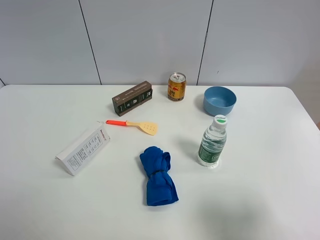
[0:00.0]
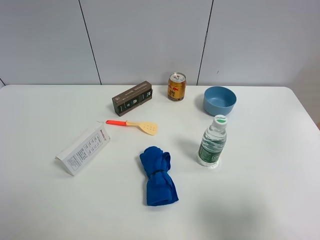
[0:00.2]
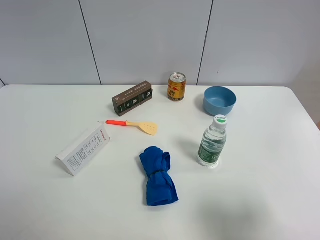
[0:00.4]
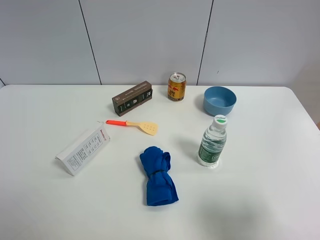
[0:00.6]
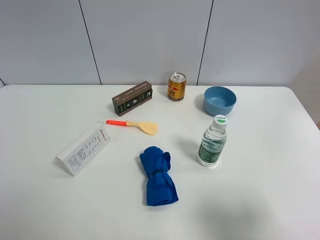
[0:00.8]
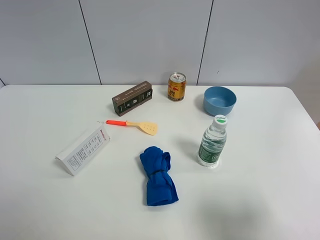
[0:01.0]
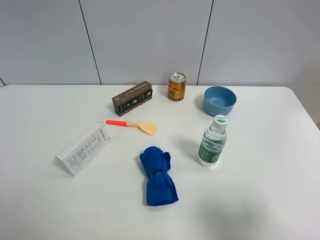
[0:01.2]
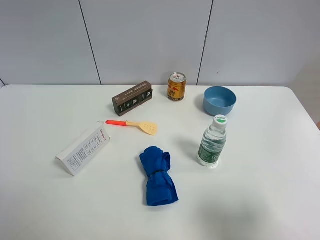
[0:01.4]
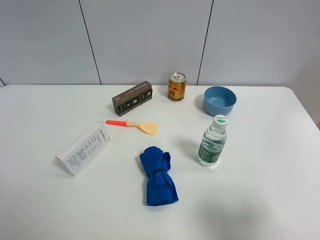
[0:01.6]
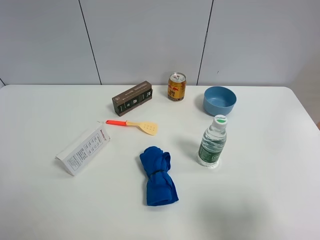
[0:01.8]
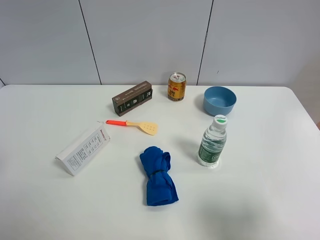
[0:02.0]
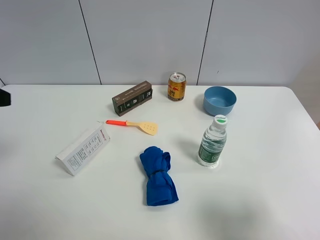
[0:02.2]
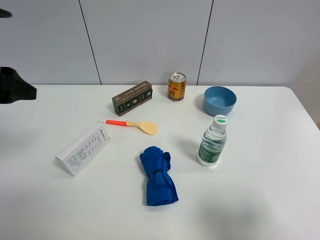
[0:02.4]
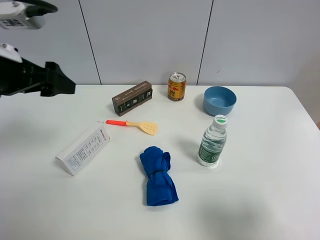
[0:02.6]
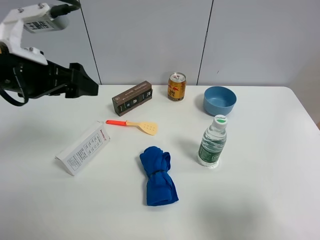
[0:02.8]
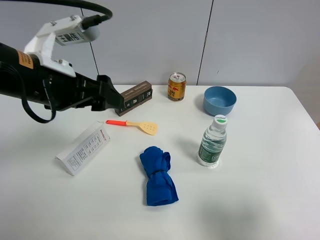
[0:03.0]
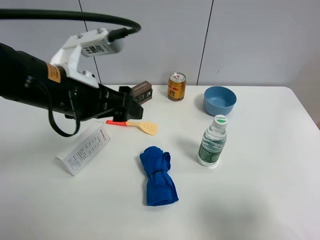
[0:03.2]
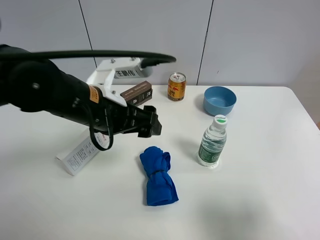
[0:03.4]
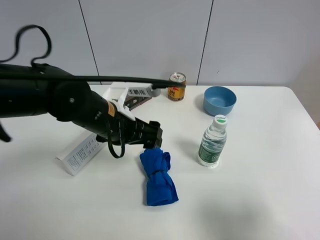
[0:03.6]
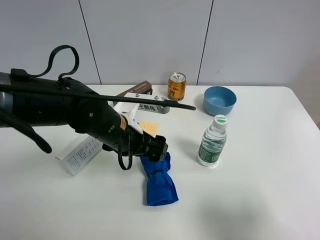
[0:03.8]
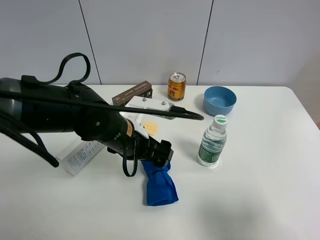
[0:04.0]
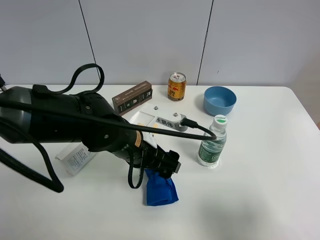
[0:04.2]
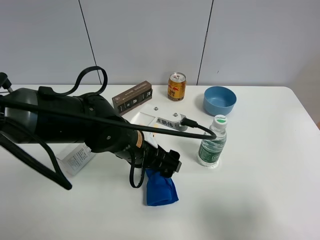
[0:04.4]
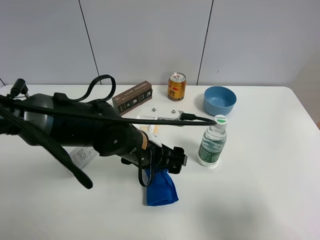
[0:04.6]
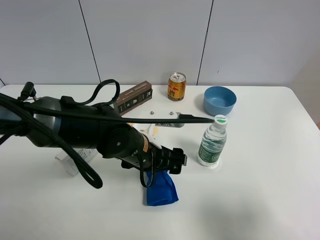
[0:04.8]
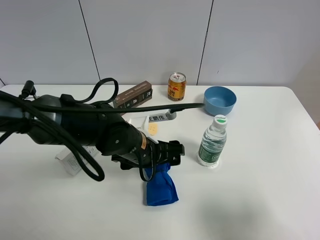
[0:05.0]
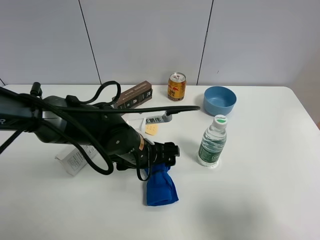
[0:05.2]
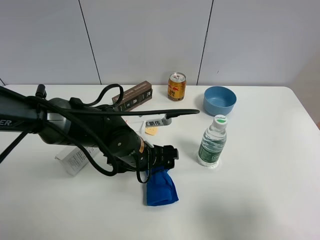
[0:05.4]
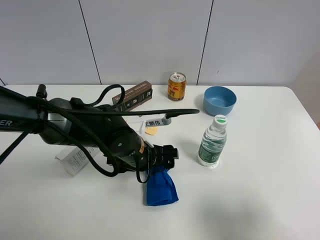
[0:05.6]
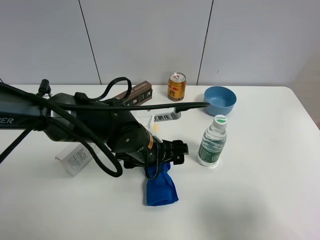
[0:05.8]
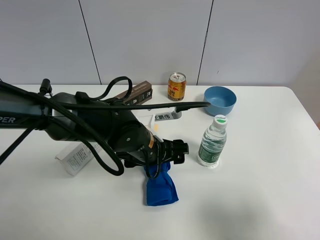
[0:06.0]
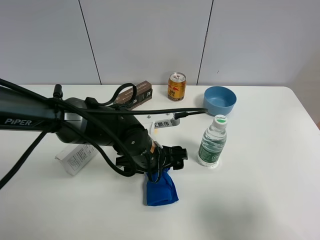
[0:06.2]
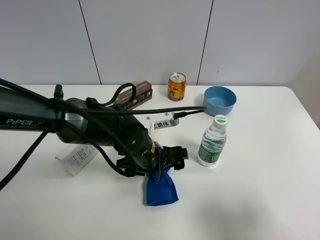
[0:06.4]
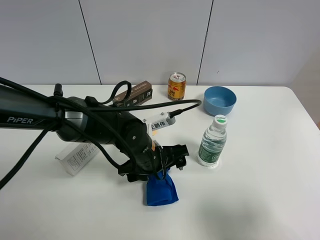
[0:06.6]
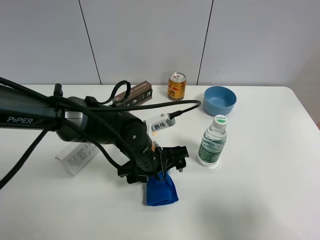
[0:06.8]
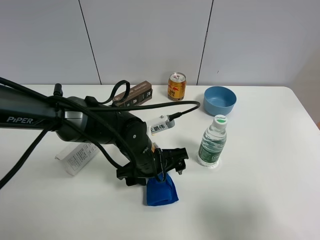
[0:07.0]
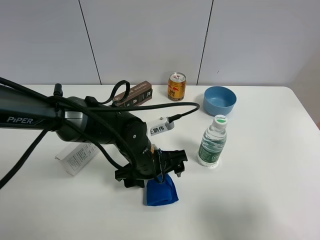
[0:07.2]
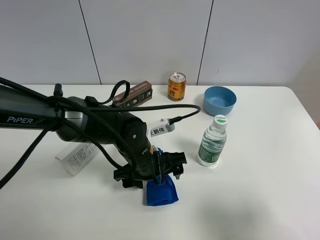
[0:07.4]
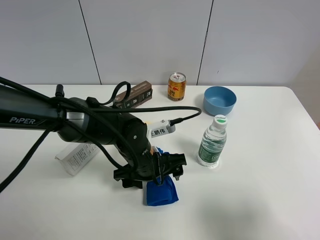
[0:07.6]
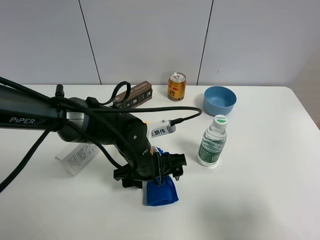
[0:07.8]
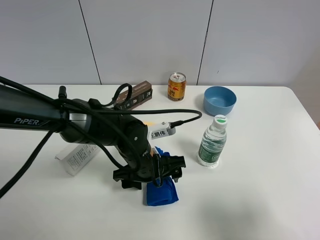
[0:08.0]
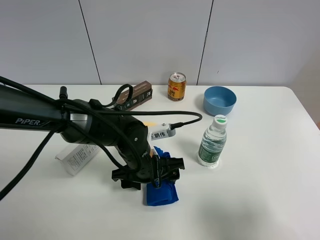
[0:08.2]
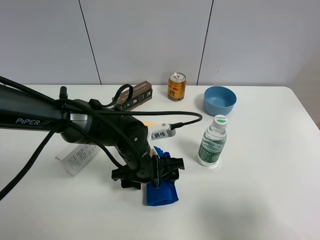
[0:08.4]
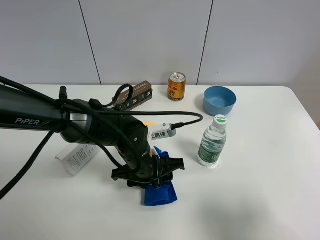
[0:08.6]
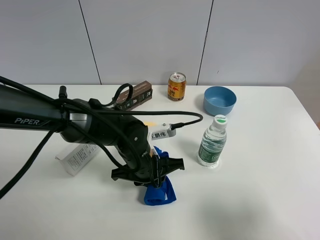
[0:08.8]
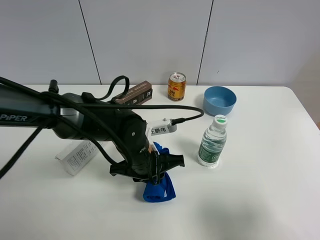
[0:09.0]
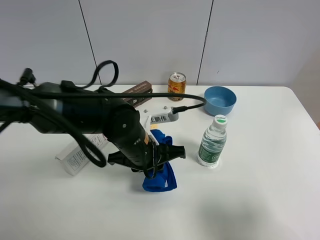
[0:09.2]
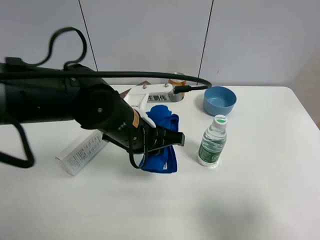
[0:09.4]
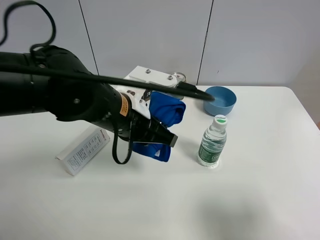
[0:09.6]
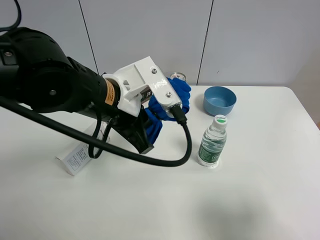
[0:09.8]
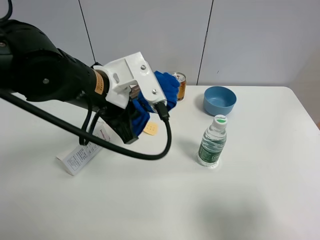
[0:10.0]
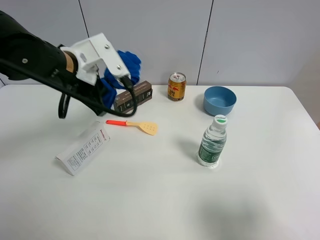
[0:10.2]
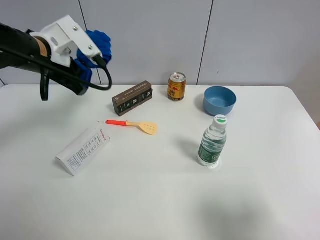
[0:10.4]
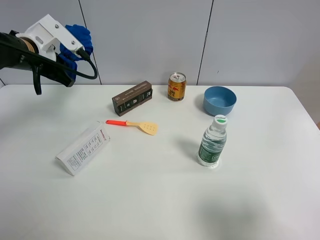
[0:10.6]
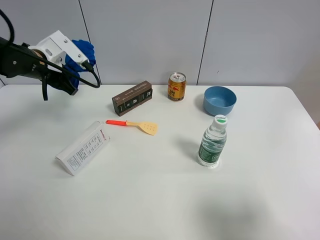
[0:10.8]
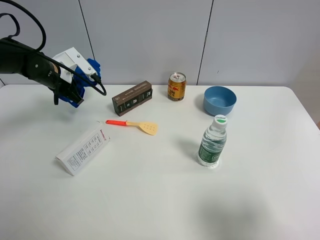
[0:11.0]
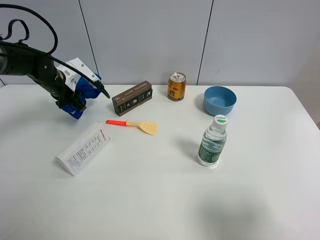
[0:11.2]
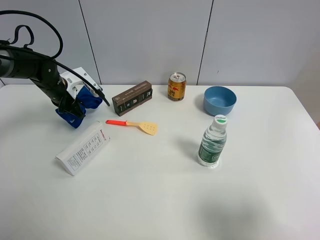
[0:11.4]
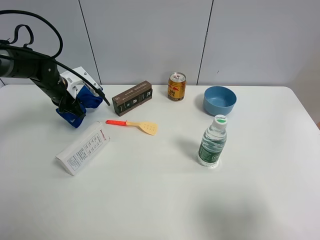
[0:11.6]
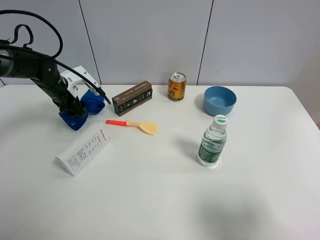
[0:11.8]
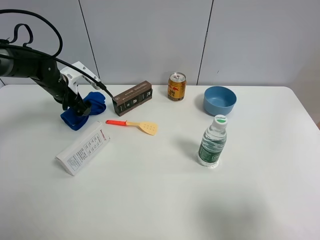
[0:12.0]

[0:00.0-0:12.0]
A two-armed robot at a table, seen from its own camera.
Task of the whole recording: the gripper move the object.
Step, 0:00.0 to 0:08.8: Grasp the blue towel with the left gripper.
Step, 0:09.0 to 0:11.8: Place the blue towel on the table with the left gripper.
0:01.6 to 0:03.0: The left gripper shifts some 25 cm forward and to the right.
0:03.0 to 0:04.4: The left gripper goes roughly 20 cm downward and to the right.
0:06.0 to 0:07.6: The grippers make only small movements.
0:07.6 to 0:09.0: The left gripper closes its fingers.
0:09.0 to 0:10.4: The left gripper moves to the left, upward and forward, approximately 25 cm.
0:10.4 to 0:12.0: The left gripper is displaced downward and forward by some 15 cm, and opens up.

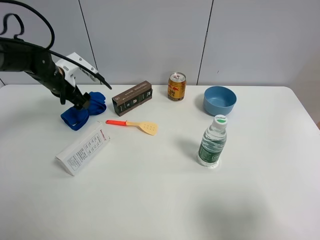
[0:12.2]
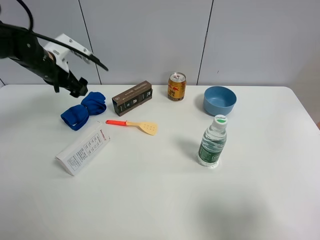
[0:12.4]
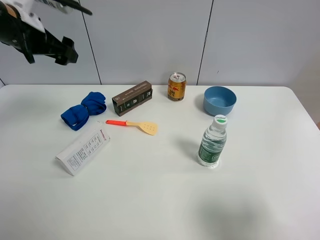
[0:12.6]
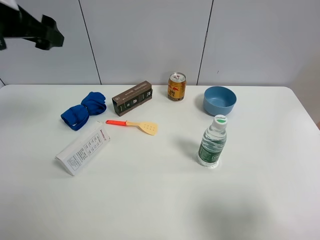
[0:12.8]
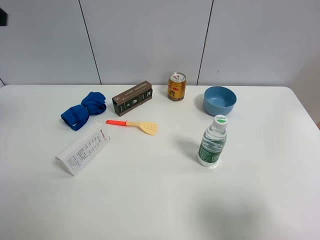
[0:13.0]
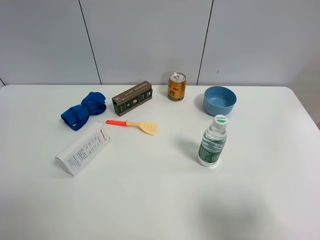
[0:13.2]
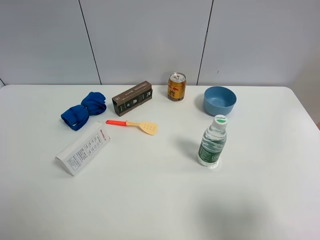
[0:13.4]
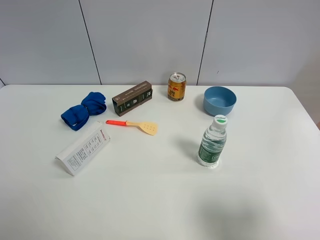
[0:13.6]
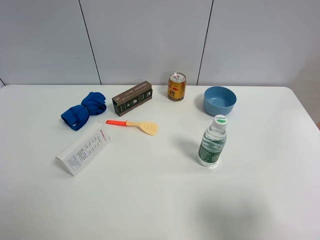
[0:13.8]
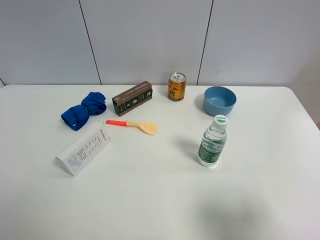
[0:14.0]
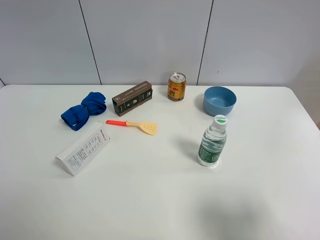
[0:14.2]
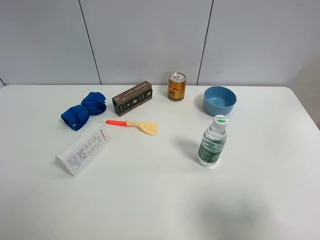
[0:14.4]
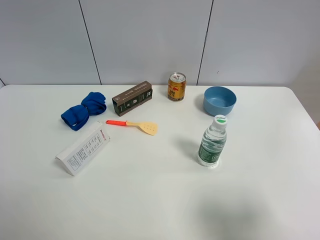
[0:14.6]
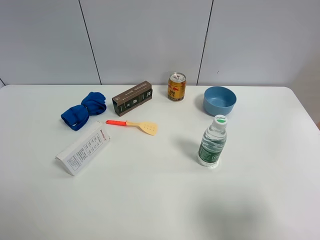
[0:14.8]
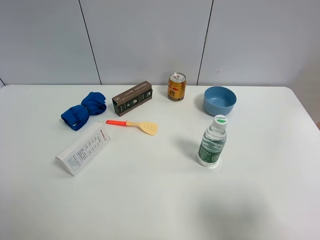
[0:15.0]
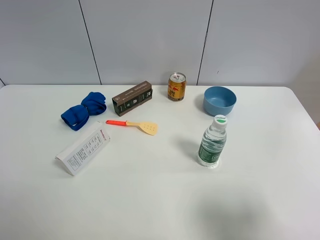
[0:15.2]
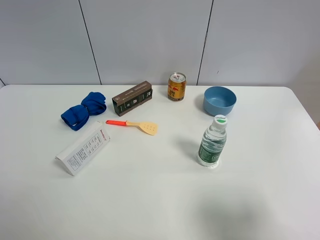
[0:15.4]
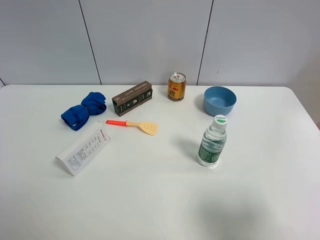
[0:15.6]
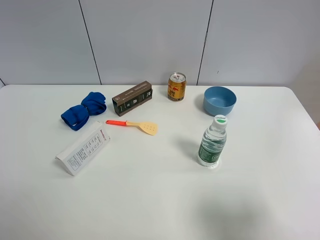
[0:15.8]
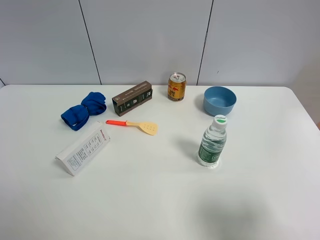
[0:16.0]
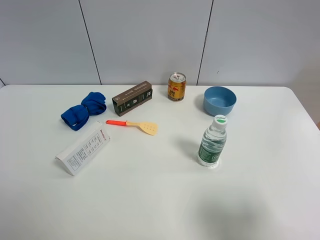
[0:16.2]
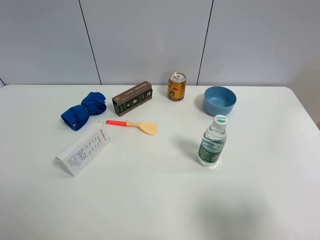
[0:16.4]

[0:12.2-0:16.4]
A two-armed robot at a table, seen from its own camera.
Task of the whole recording: the gripper move the object.
0:12.2 to 0:13.6: The left gripper moves backward and upward, some 40 cm.
0:15.0 to 0:16.4: Both grippers stay about where they are.

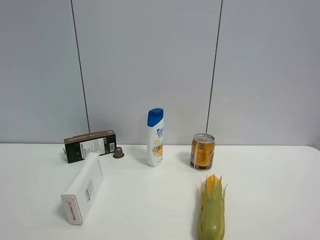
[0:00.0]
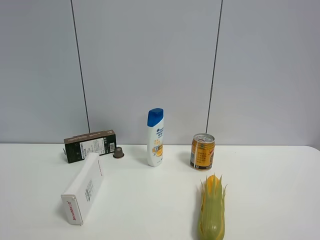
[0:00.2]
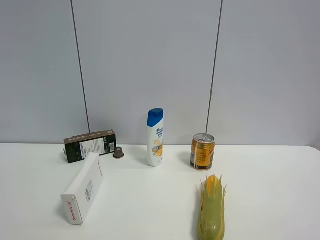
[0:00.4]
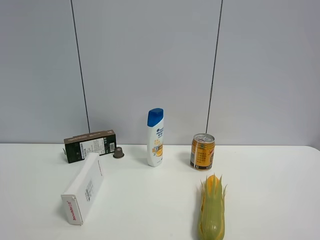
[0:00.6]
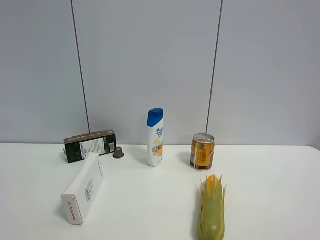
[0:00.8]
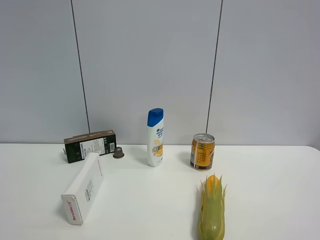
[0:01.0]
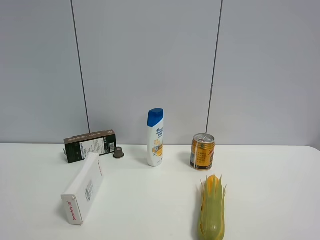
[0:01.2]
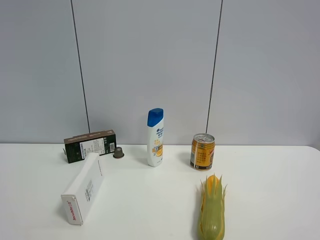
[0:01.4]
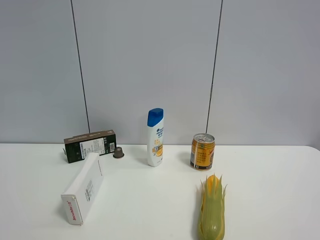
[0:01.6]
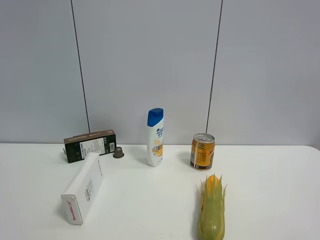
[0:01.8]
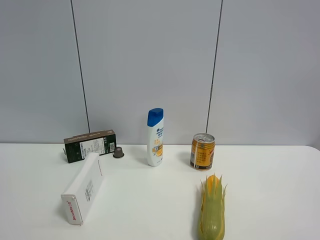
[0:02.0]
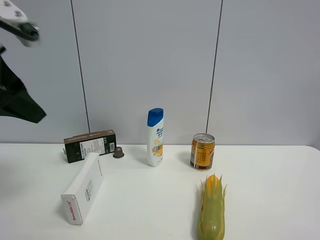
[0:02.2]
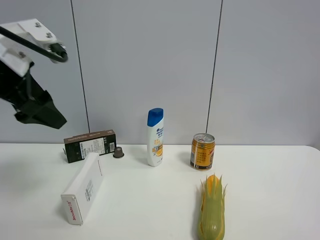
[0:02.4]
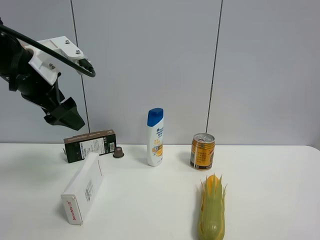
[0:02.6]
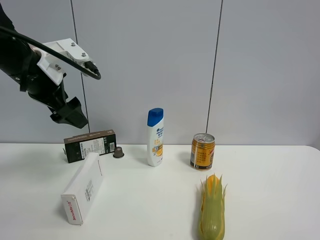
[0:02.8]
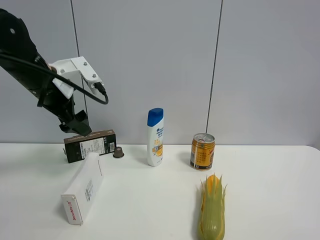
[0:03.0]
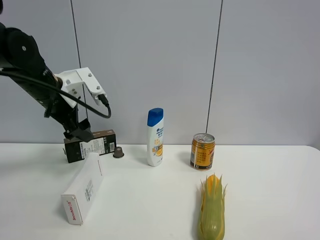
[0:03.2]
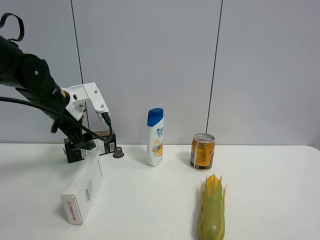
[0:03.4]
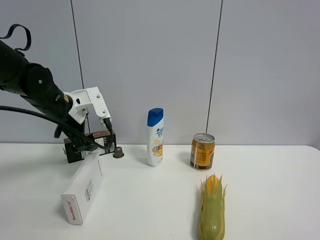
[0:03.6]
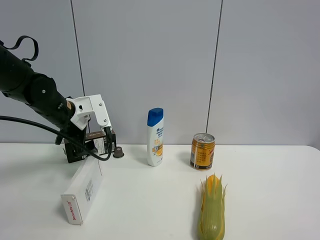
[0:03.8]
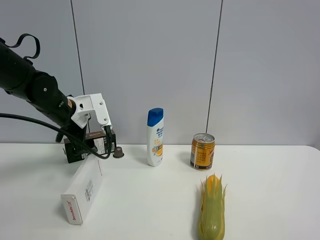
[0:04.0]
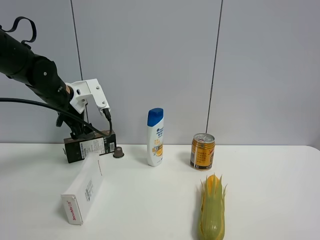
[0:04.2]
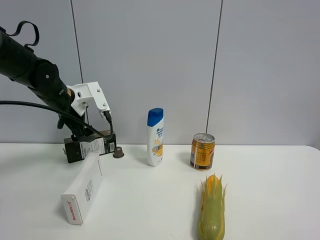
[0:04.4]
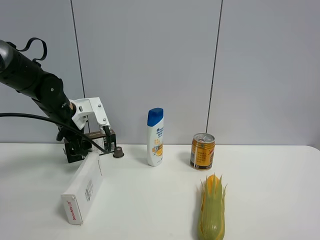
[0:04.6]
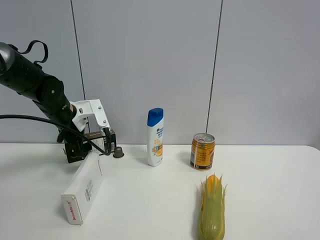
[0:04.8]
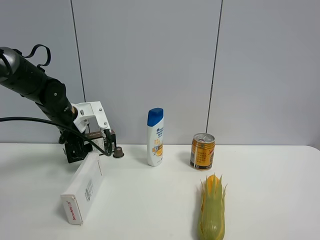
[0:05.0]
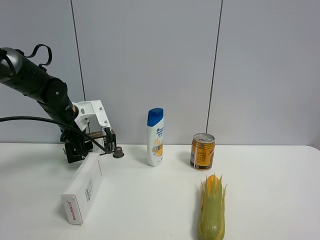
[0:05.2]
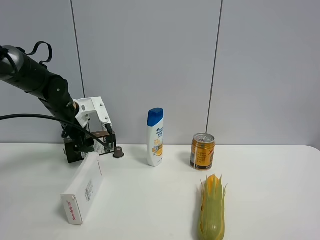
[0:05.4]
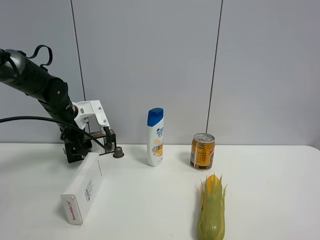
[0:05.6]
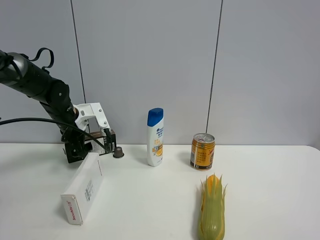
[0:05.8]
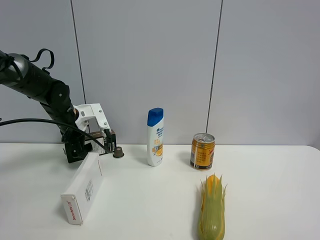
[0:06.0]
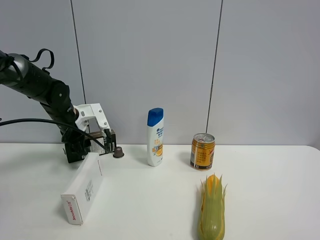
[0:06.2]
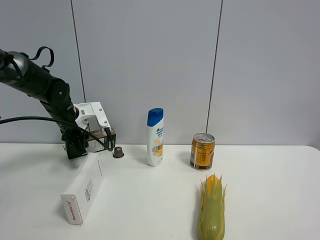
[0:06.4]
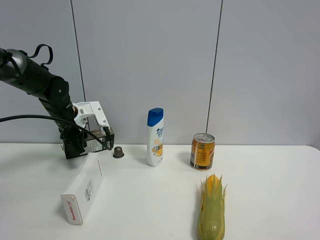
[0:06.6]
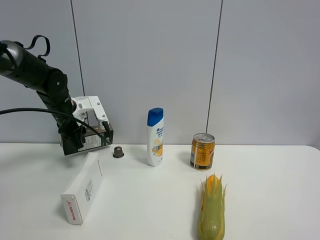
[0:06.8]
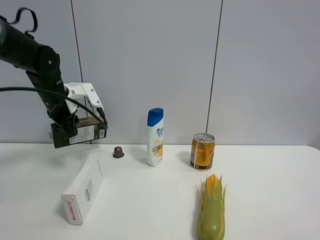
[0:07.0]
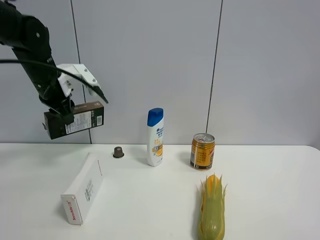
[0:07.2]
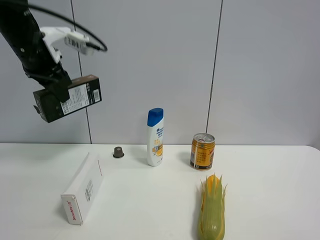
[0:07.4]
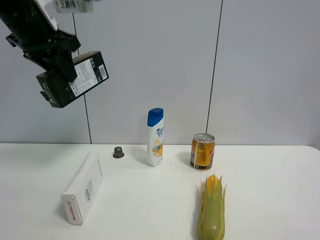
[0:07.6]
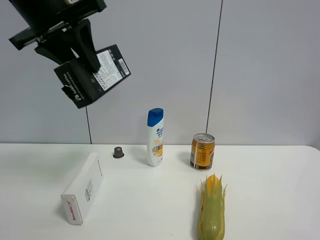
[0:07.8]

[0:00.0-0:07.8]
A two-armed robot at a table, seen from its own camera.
Task of the whole recording: the gripper move the object.
Step, 0:00.0 to 0:06.4: Grasp the brown box with the left gripper.
0:01.6 to 0:03.2: The left gripper goes some 35 cm forward and downward.
0:03.2 to 0:04.6: The left gripper shifts approximately 10 cm downward and forward.
0:04.6 to 0:06.2: The left gripper closes up.
0:06.2 to 0:07.8: The left gripper travels upward and backward by about 30 cm, and closes up.
